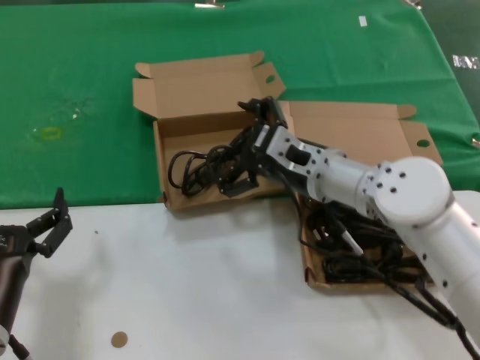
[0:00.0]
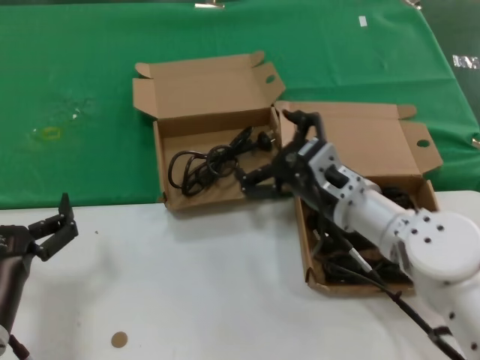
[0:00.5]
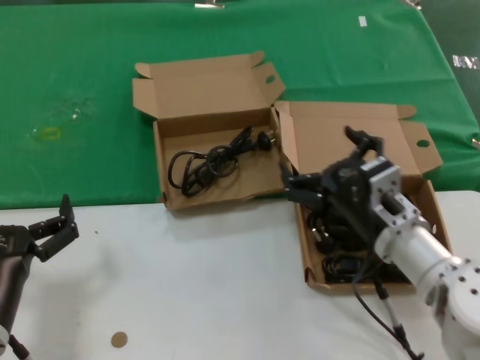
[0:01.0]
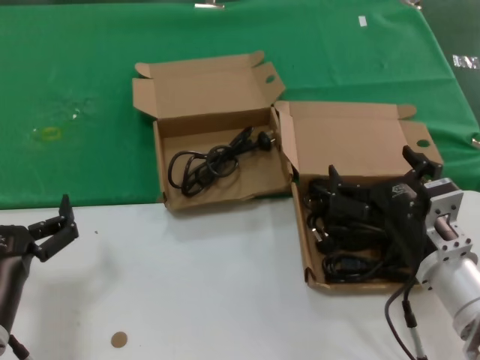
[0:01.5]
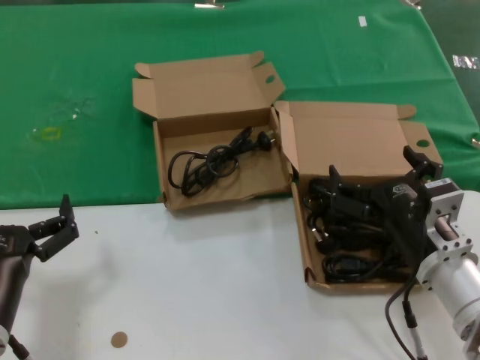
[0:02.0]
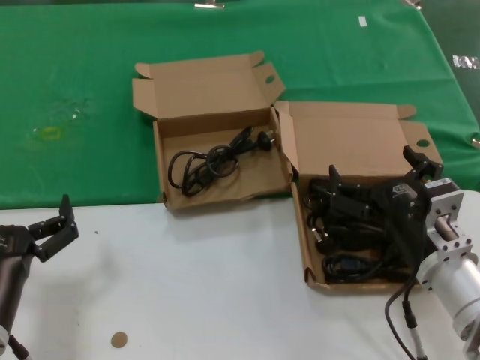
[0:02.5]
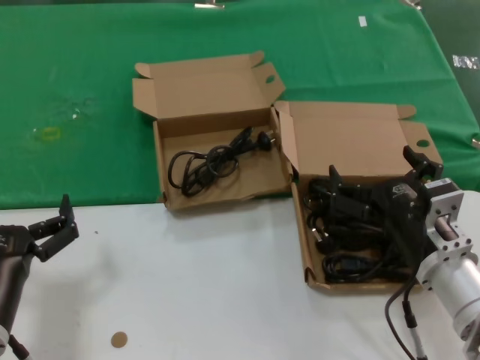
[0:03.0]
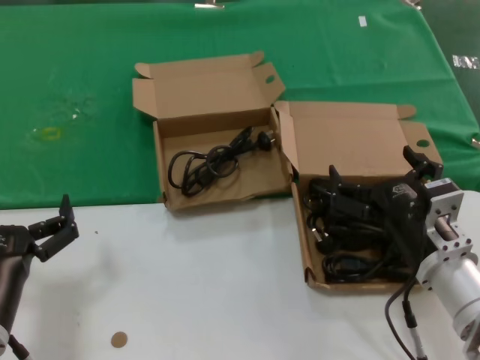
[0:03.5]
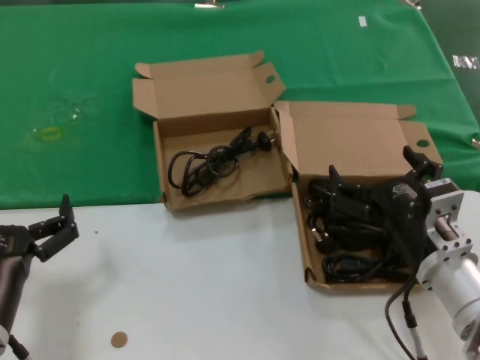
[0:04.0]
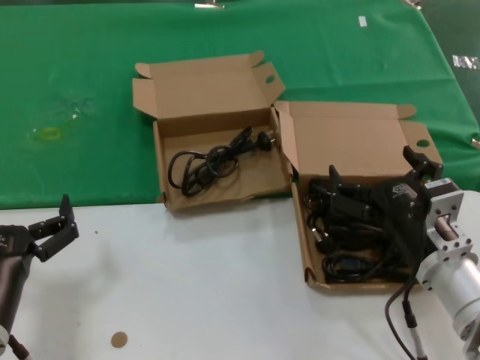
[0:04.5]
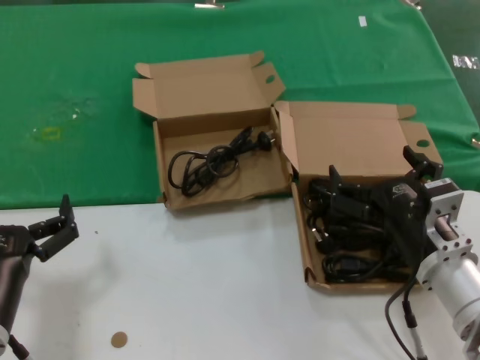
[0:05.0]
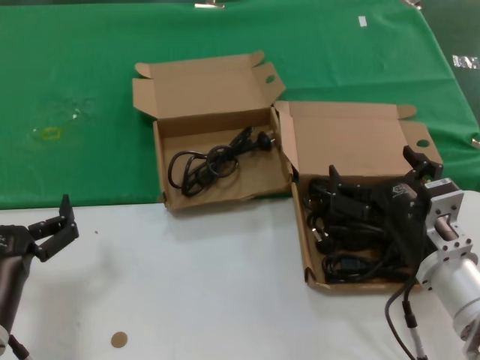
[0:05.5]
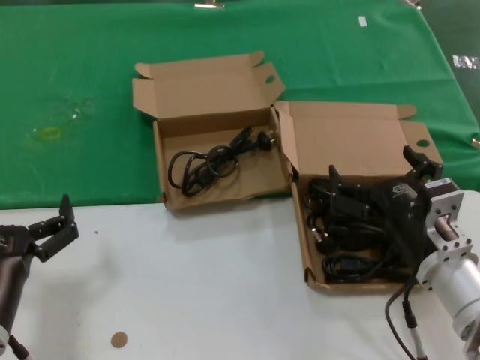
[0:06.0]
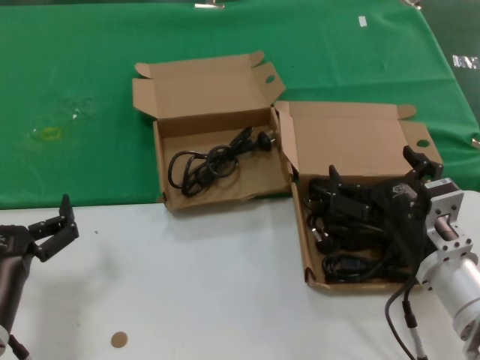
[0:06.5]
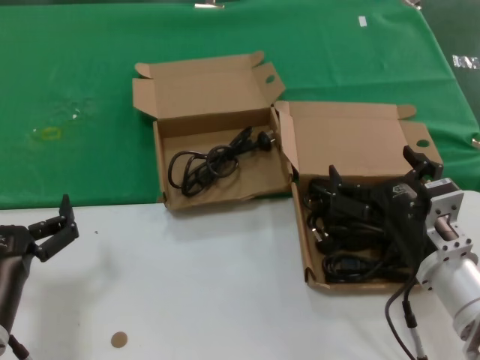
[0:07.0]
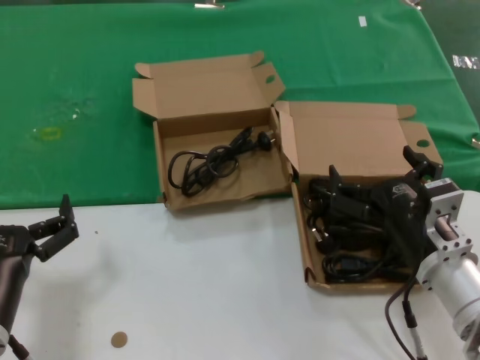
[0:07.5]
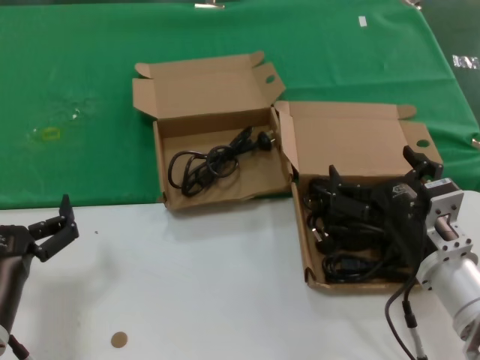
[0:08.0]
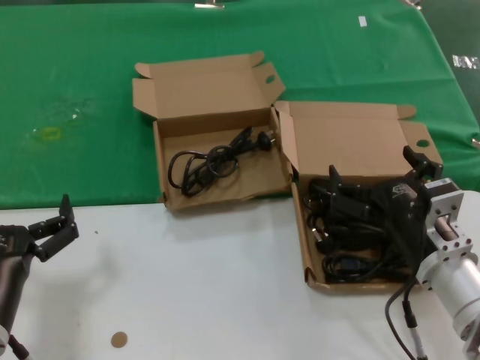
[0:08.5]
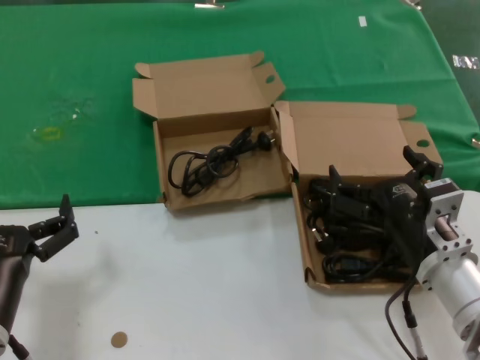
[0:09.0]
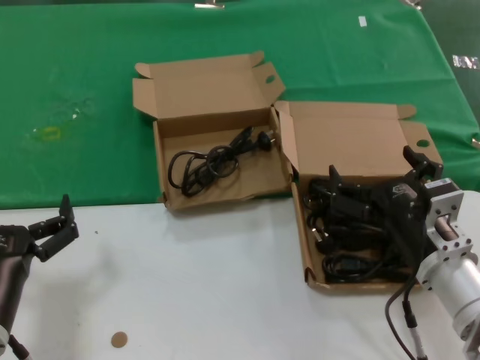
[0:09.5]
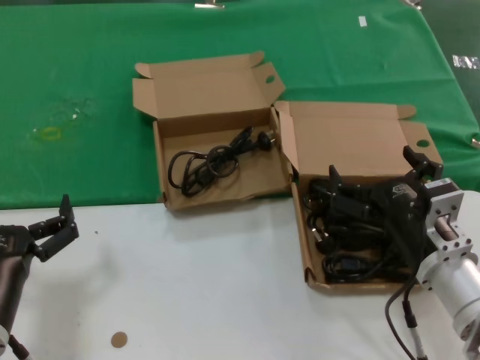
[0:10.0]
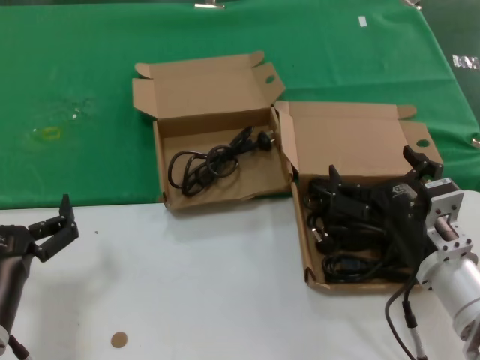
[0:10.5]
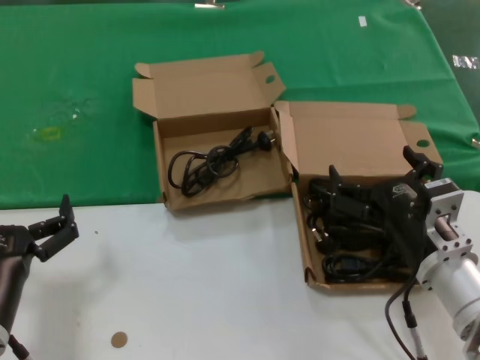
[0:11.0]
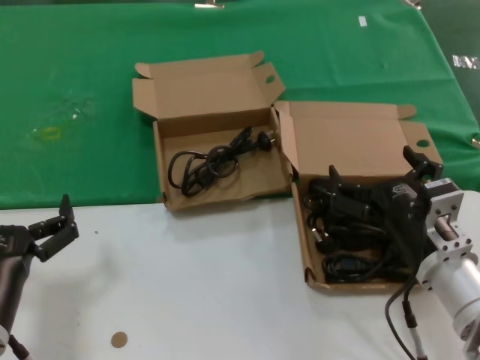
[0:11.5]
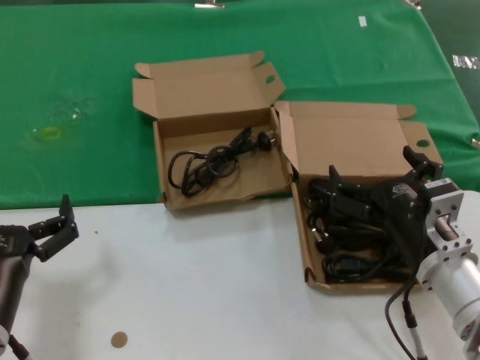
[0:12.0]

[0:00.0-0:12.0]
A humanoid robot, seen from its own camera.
Task of the whole recording: take the parts from the box containing them and put them into an empty box.
0:00.0 to 0:02.0: The right hand shifts roughly 20 cm backward, to the right and downward.
0:02.0 to 0:12.0: Both hands stay put.

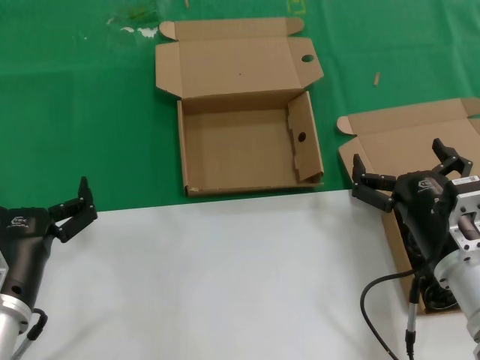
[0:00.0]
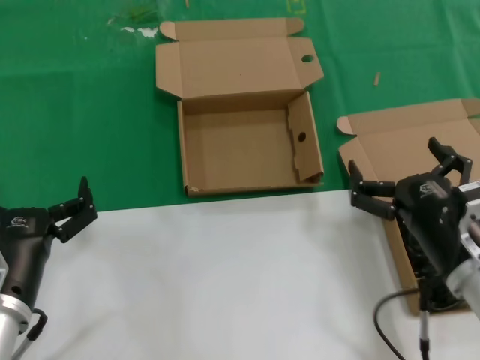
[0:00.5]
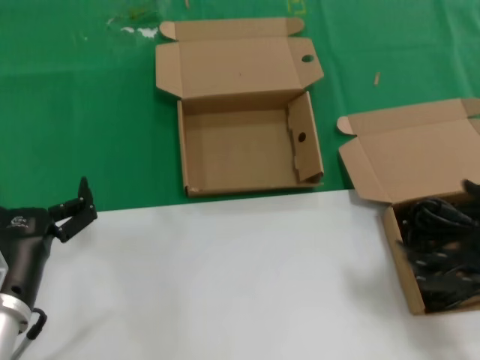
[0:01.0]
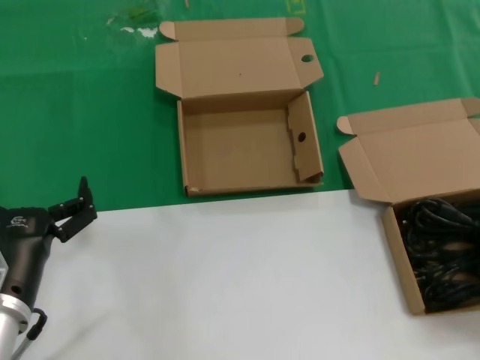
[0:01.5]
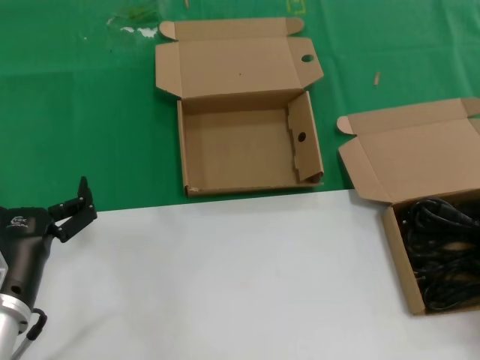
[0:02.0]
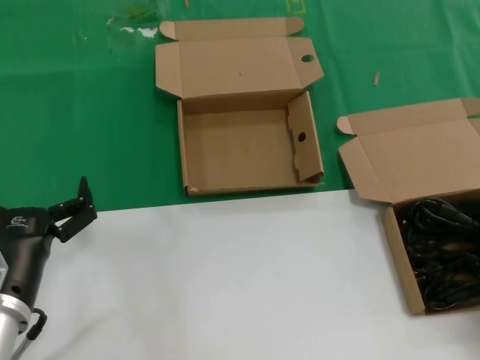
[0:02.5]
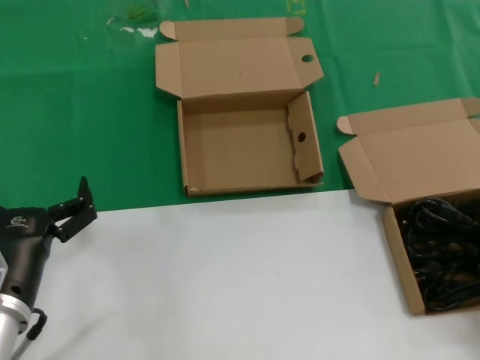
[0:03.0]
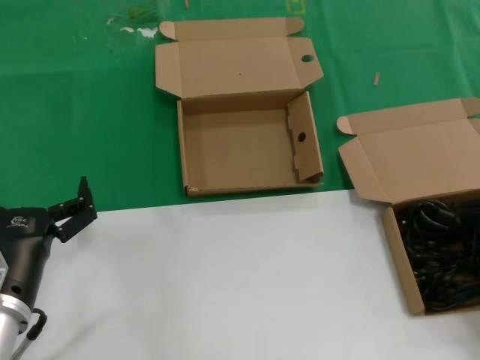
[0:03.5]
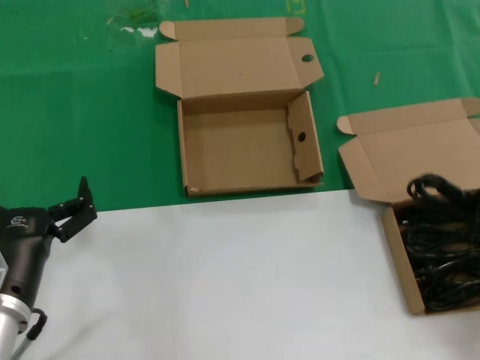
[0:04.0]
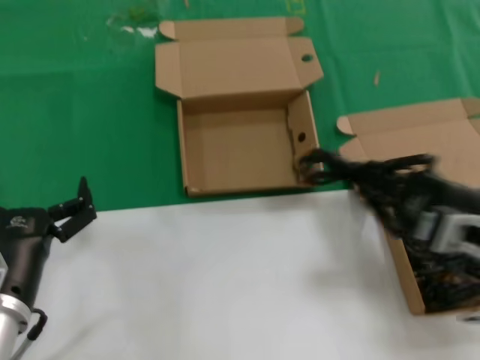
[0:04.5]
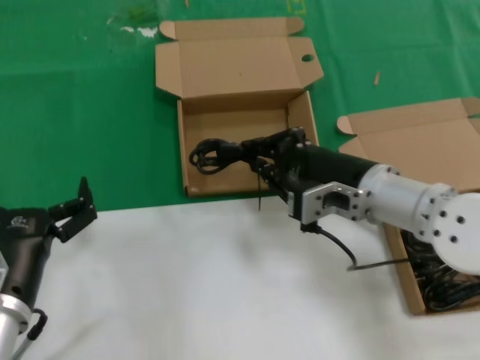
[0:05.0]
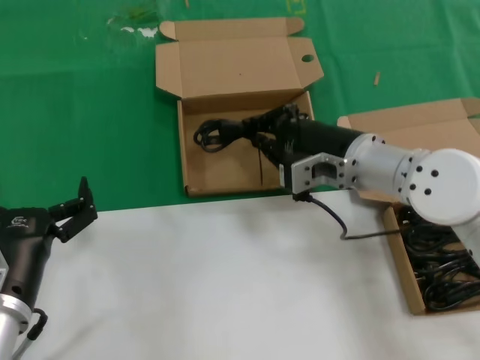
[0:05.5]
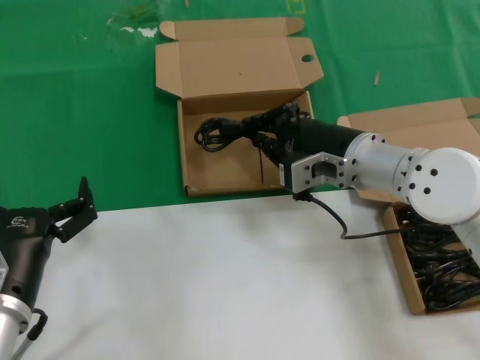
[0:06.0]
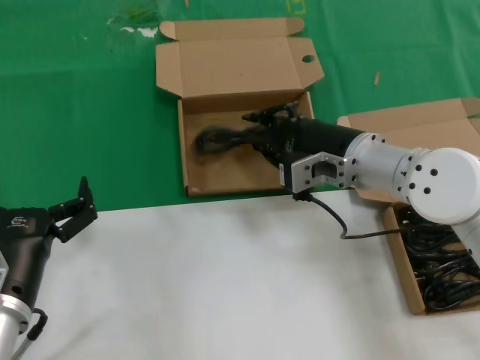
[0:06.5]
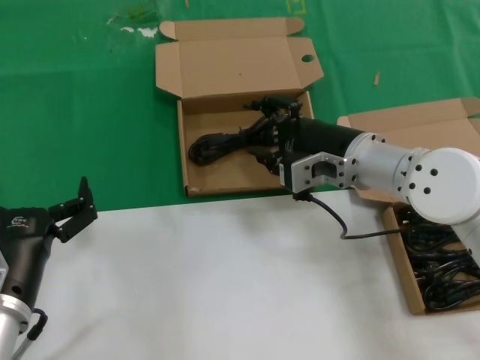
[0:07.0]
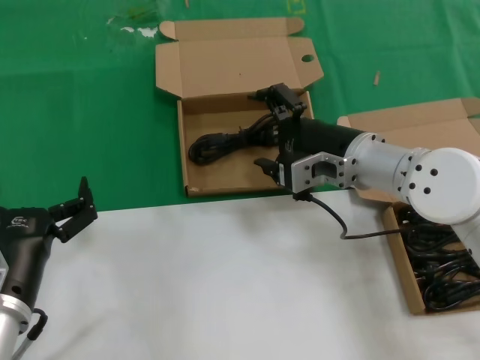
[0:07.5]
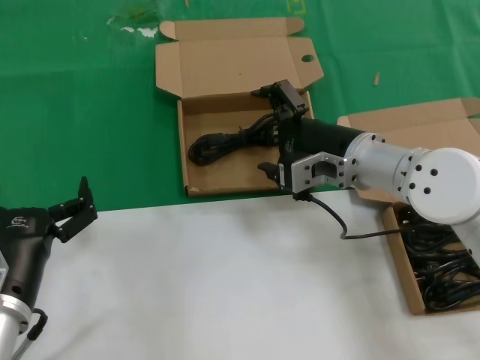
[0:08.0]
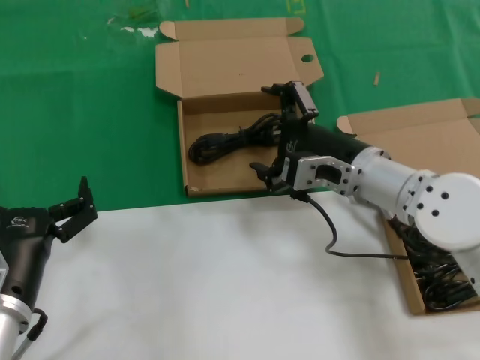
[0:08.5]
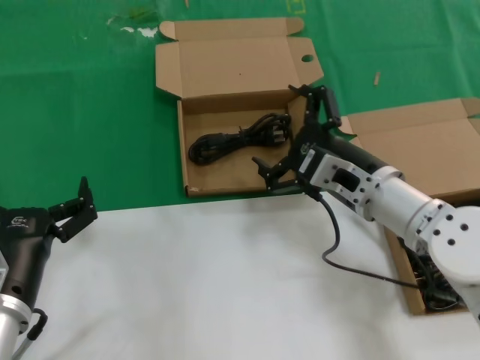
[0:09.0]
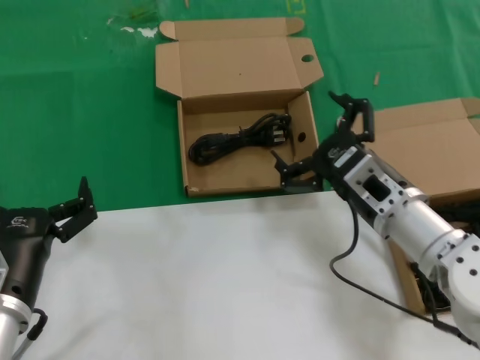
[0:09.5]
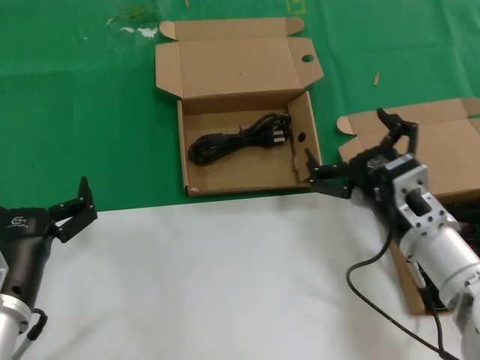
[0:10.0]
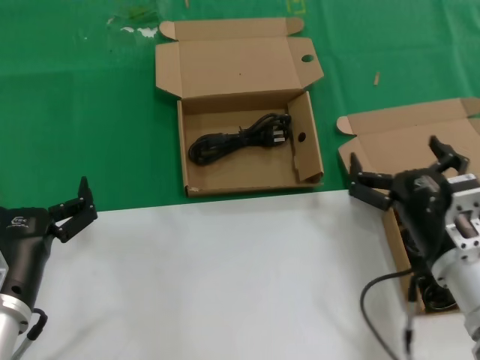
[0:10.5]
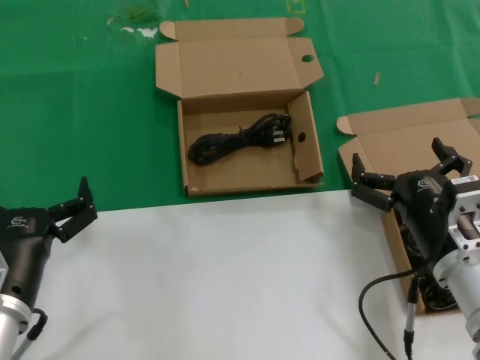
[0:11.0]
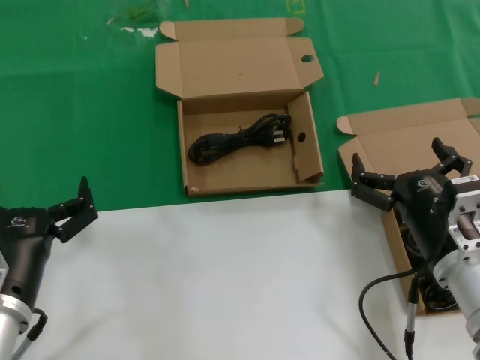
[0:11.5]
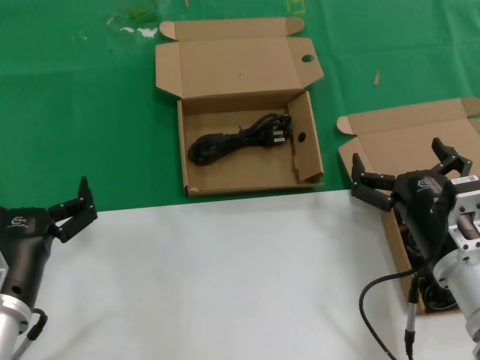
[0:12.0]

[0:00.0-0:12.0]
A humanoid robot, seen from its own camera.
Task of the whole recording: take the parts from the box containing them and put them into an empty box.
Step, 0:00.0 to 0:03.0: Grasp the data cable.
Step, 0:03.5 to 0:07.5: Place the data cable in the another box.
0:00.0 to 0:02.0: The right hand travels to the right by some 20 cm.
0:02.0 to 0:04.0: The hands make only small movements.
0:04.0 to 0:06.0: The right hand travels to the left and forward by some 30 cm.
0:06.0 to 0:08.0: Both hands stay about where they are.
0:08.0 to 0:10.0: The right hand shifts roughly 15 cm backward and downward.
0:10.0 to 0:12.0: The hands move only a little.

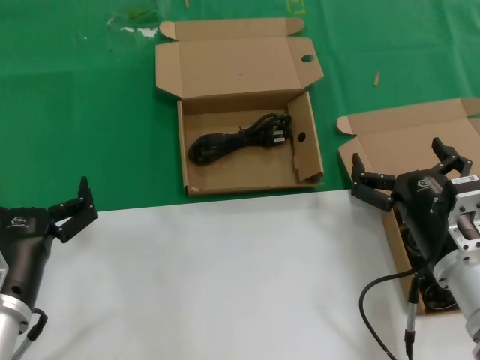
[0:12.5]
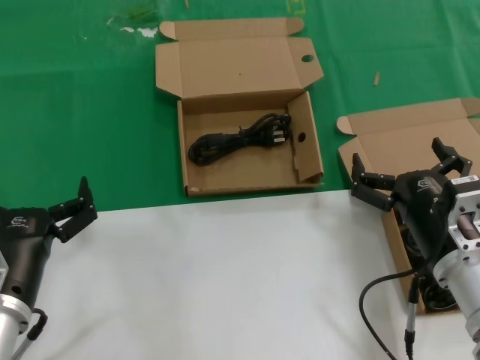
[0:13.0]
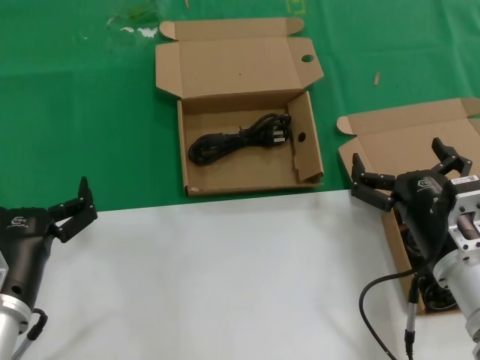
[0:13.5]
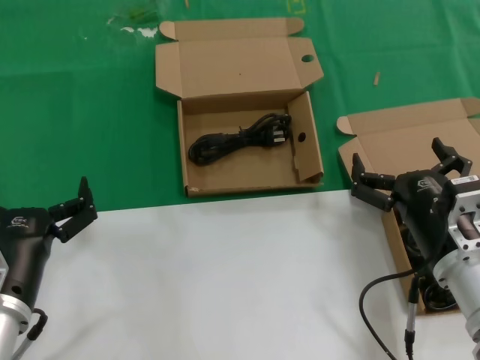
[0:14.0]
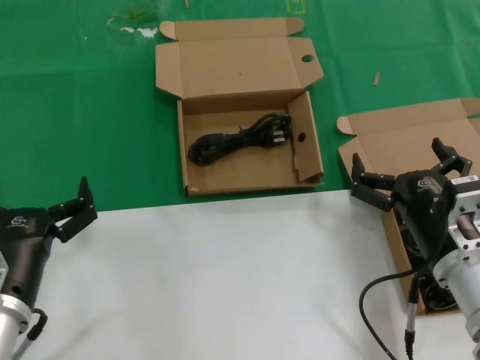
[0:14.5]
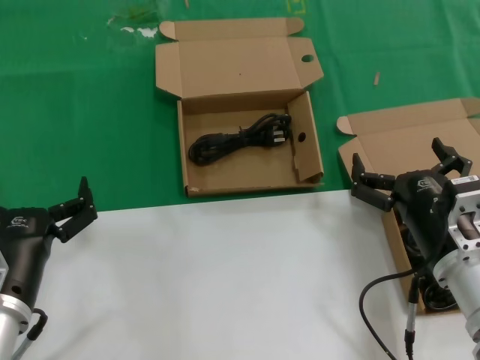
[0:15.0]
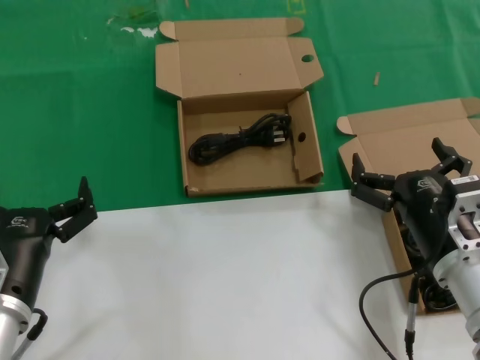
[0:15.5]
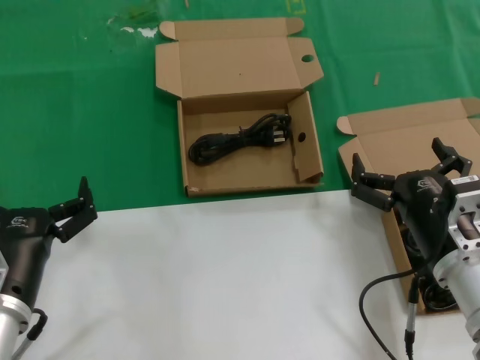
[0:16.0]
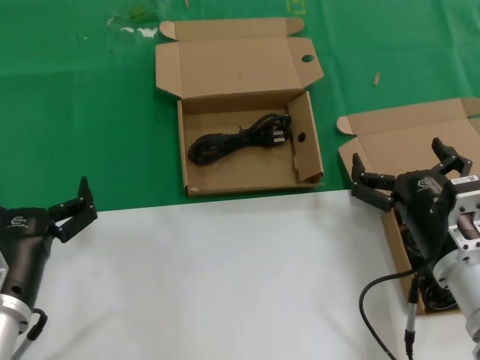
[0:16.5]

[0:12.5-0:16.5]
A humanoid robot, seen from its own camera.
Task of the whole recording: take the parts from the box containing them and put them into an empty box.
0:12.5 to 0:16.5: The two hands keep their place.
